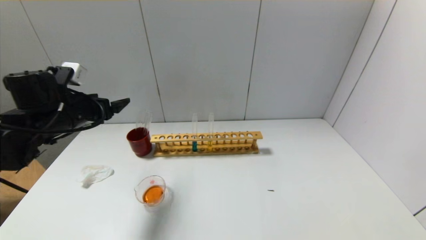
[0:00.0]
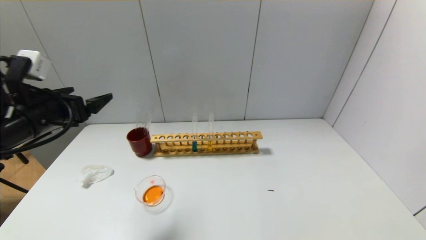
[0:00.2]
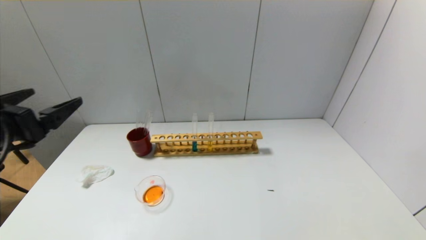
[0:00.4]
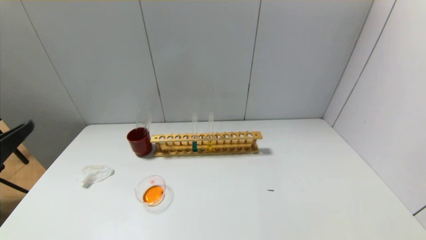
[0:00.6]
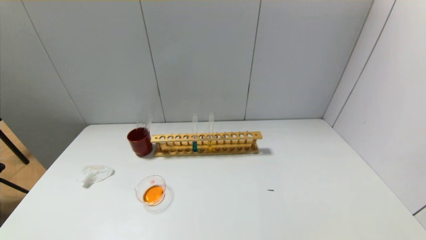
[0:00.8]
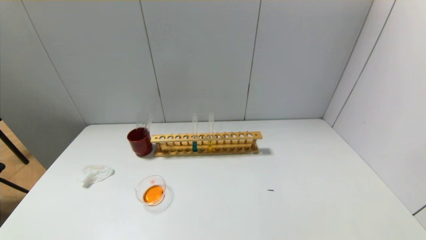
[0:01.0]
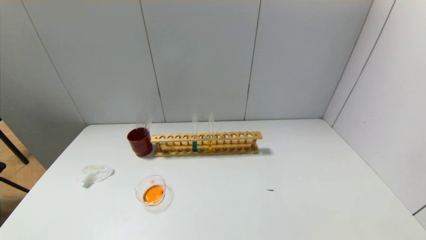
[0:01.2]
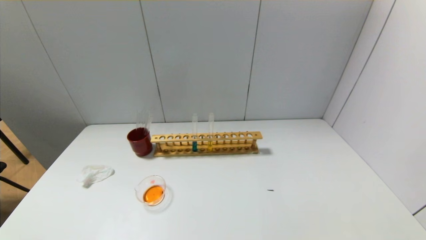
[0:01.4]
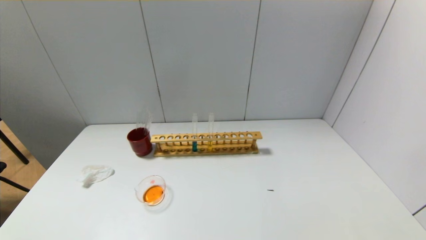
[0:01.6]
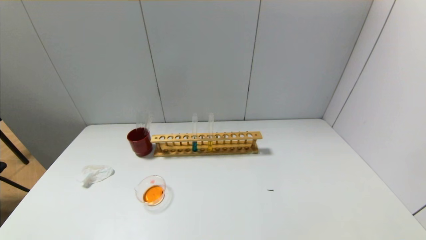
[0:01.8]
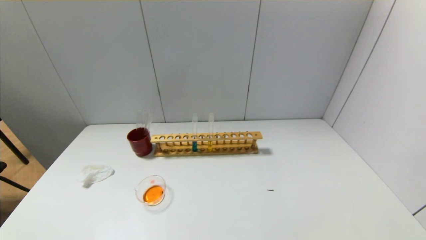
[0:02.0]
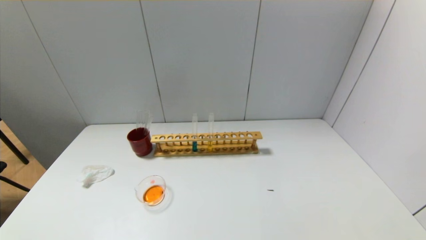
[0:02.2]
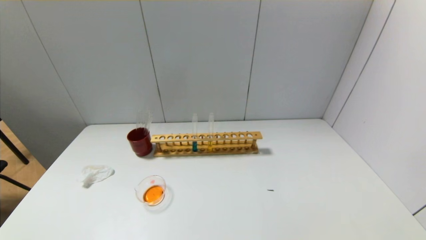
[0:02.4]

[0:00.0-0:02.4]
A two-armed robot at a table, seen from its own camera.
0:00.0 to 0:01.2: The left gripper shifts roughly 35 cm backward.
